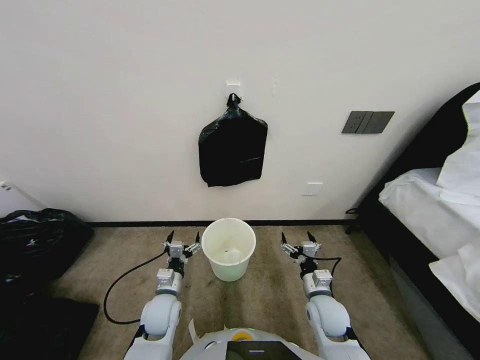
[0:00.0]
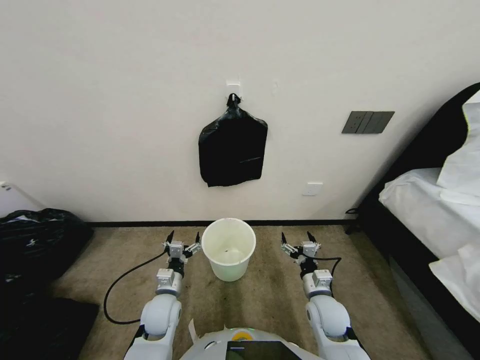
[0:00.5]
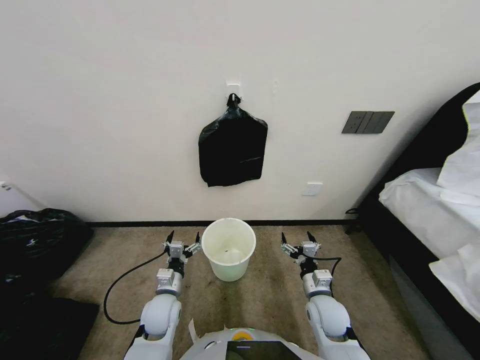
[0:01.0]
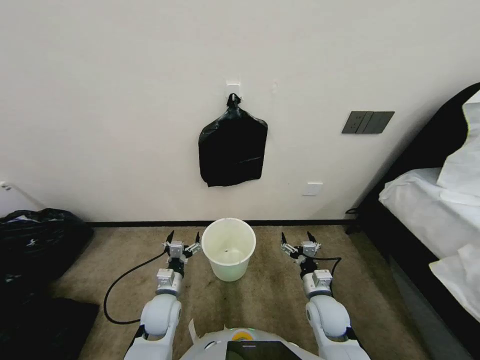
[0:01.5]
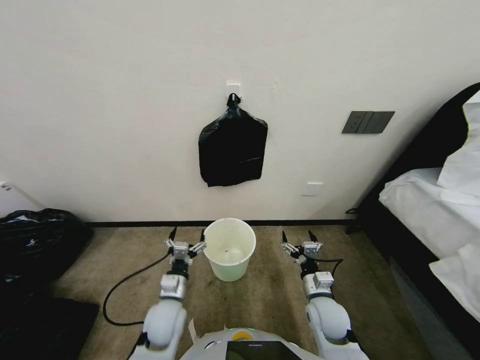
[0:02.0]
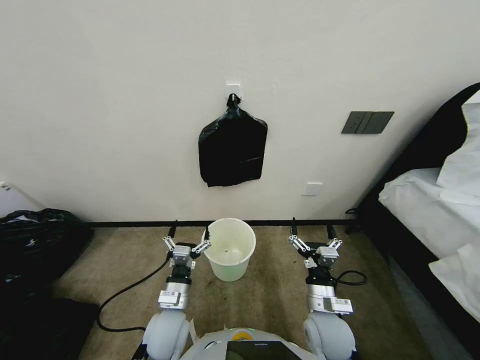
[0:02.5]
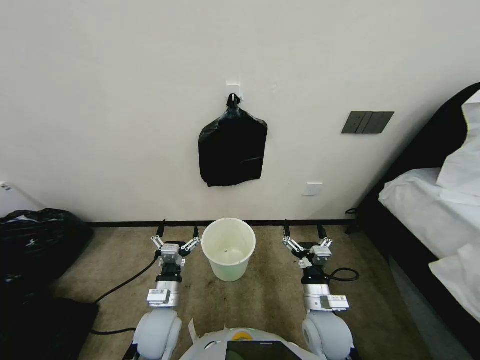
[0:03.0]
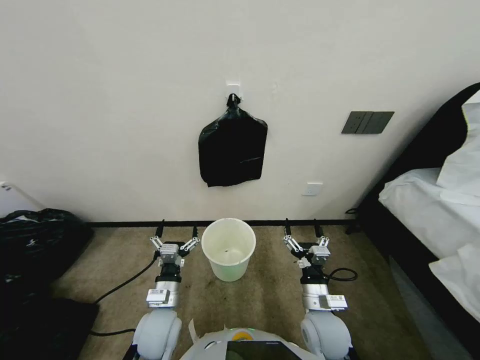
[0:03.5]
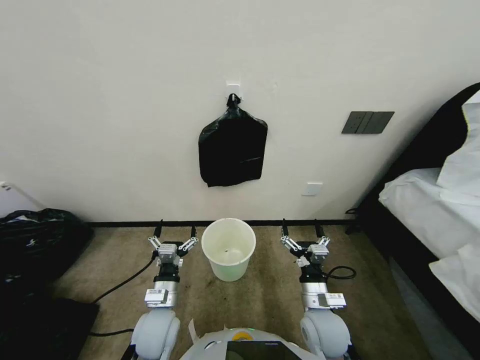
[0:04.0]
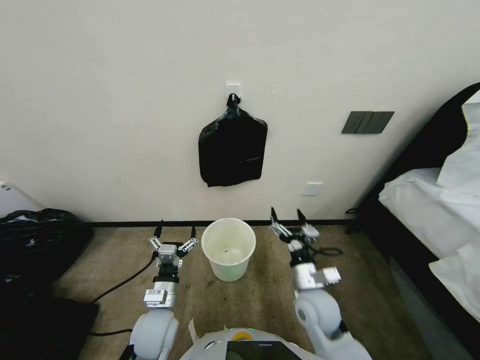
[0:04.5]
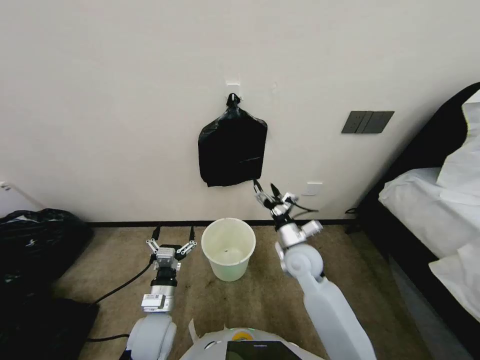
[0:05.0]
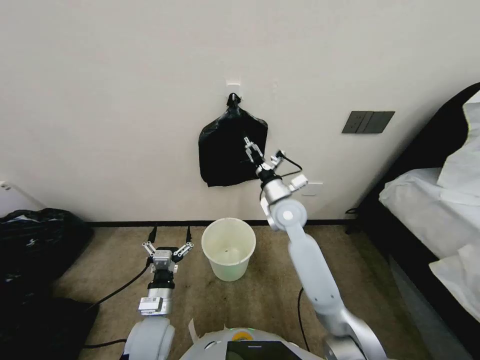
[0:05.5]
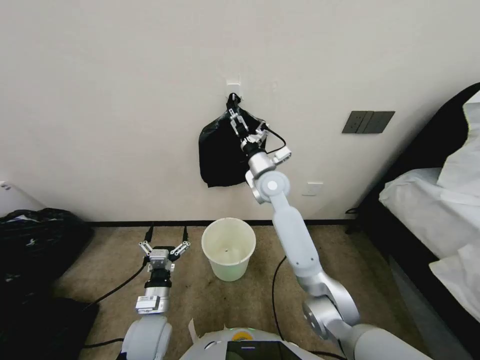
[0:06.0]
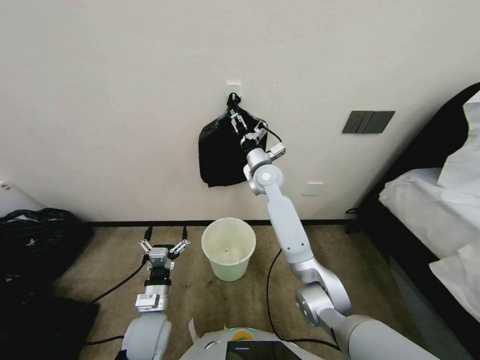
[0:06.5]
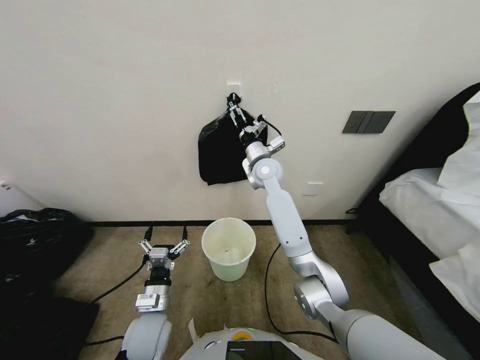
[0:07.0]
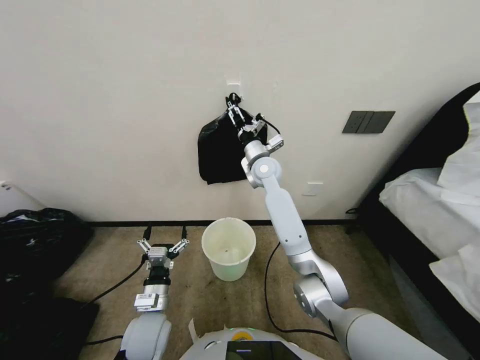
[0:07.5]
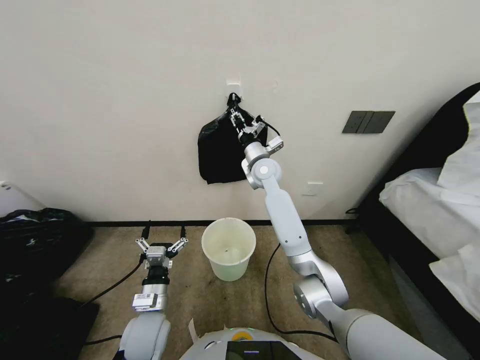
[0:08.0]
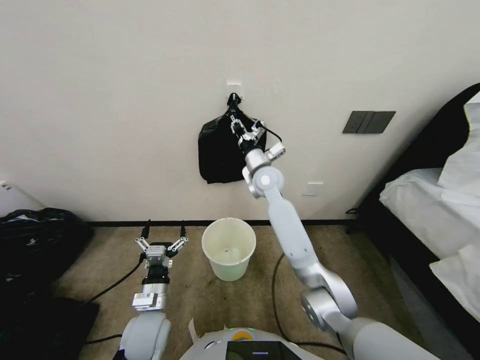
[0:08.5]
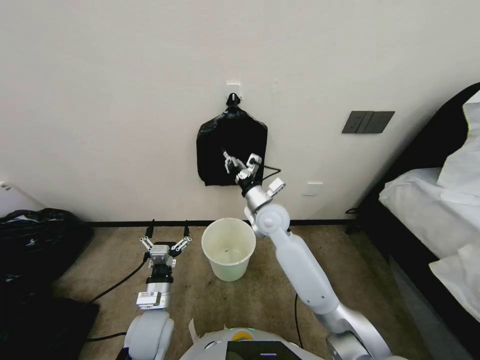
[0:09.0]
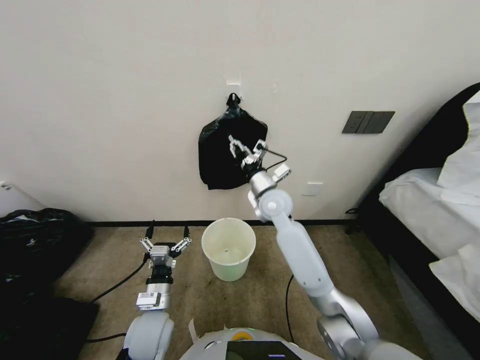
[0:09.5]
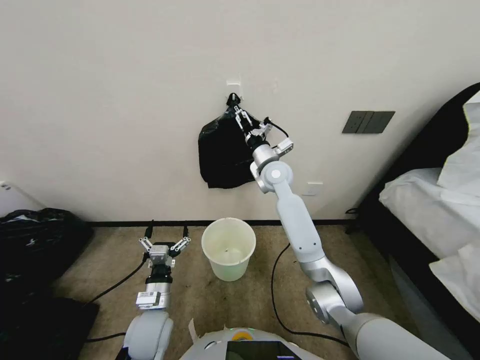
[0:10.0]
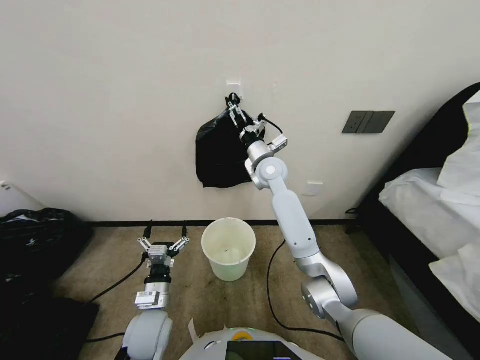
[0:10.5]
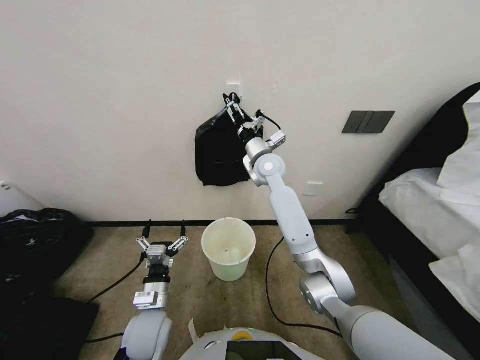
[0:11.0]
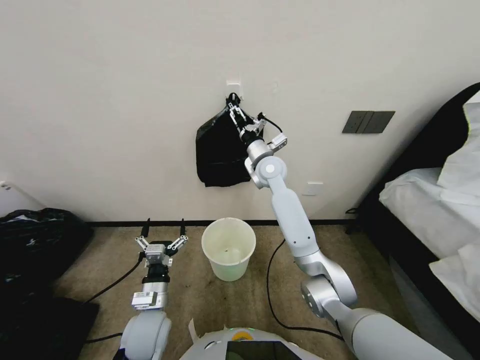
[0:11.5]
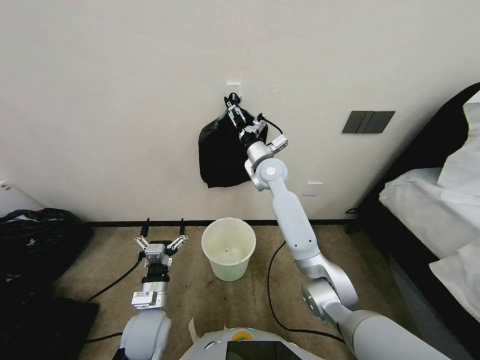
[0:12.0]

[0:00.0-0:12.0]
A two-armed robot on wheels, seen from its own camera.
Task of the whole recording: Place a trash bag onto the trash bin.
0:02.0 to 0:04.0: The left gripper changes place by roughly 5 cm. The right gripper ends up roughly 5 cm from where it was.
0:04.0 to 0:06.0: The right gripper shifts roughly 35 cm forward and upward.
0:06.0 to 0:08.0: The right gripper goes about 5 cm forward, and closes.
0:08.0 to 0:10.0: The right gripper moves some 10 cm backward and comes back, and opens.
0:10.0 to 0:12.0: There are only small adjustments of the grippers.

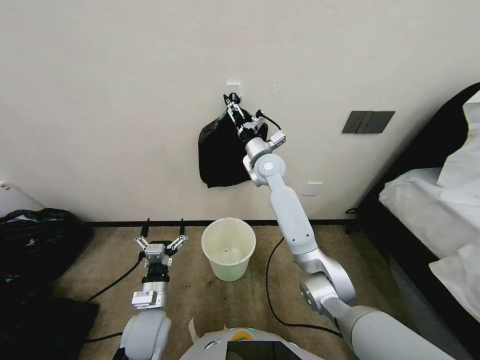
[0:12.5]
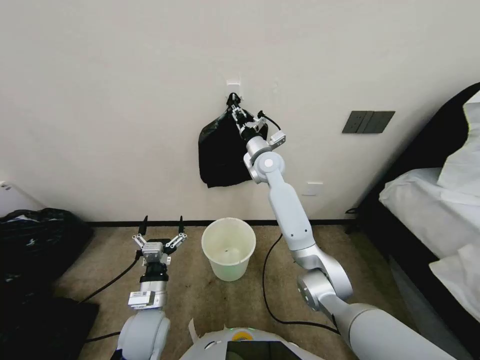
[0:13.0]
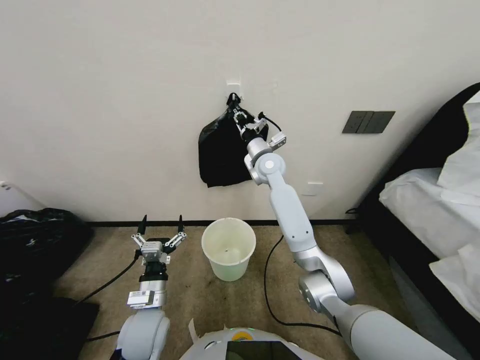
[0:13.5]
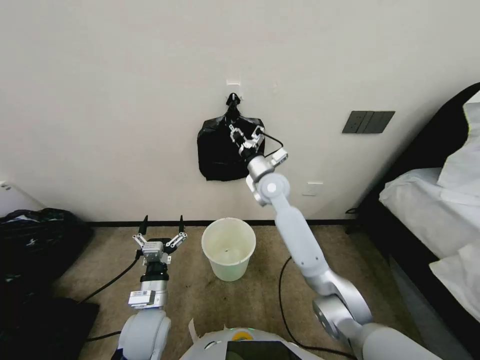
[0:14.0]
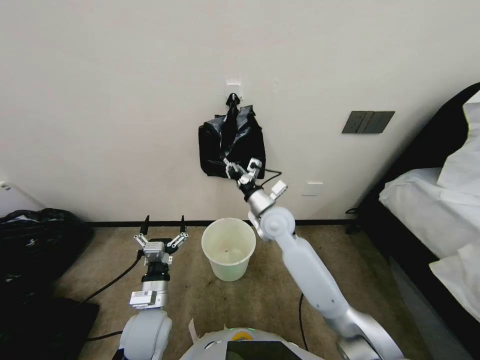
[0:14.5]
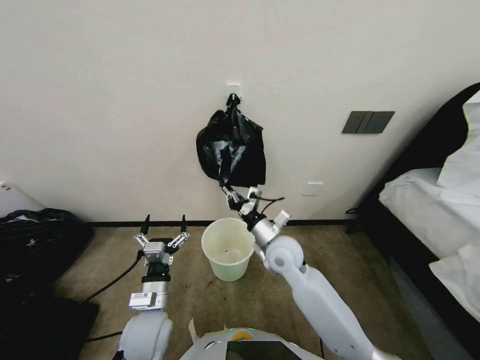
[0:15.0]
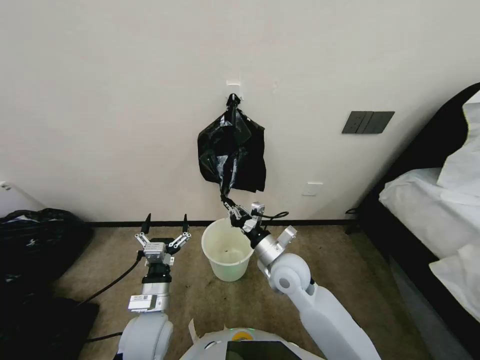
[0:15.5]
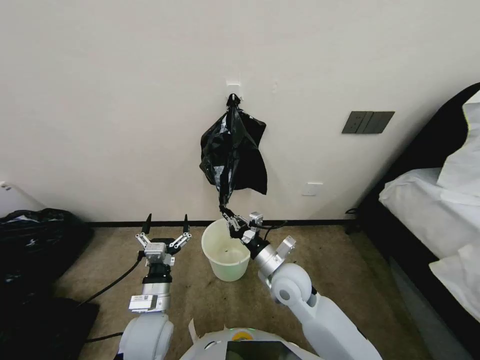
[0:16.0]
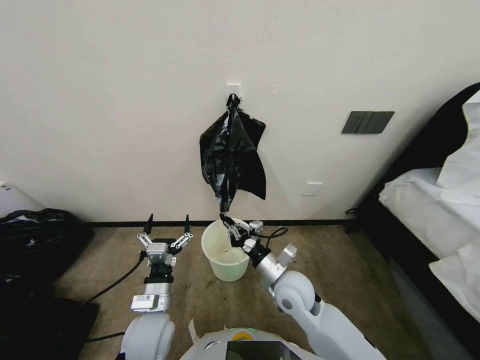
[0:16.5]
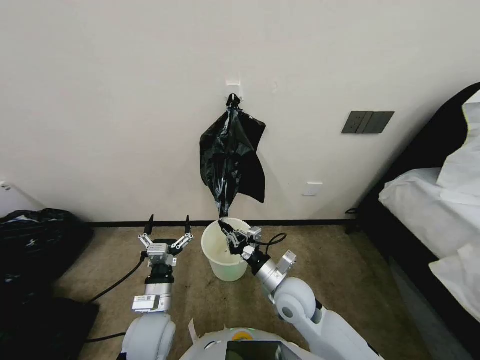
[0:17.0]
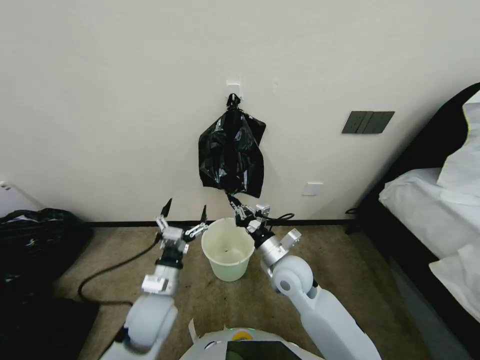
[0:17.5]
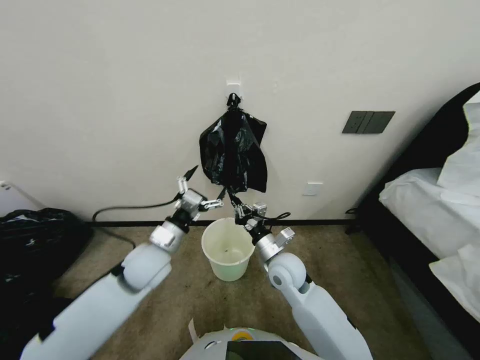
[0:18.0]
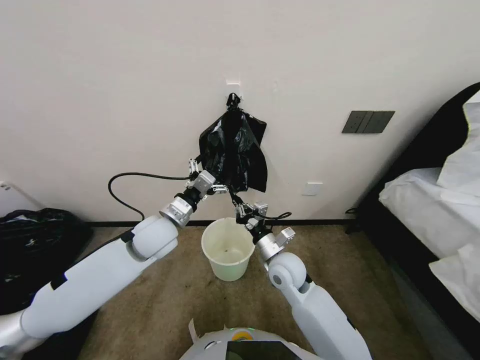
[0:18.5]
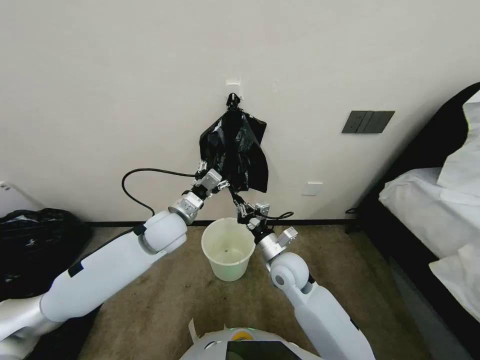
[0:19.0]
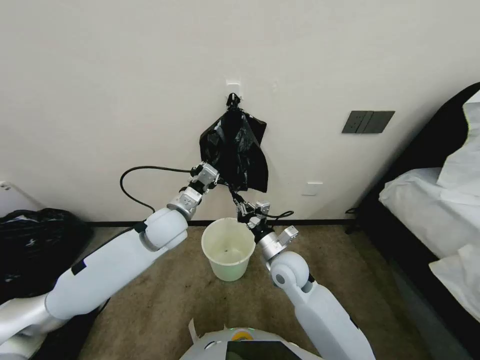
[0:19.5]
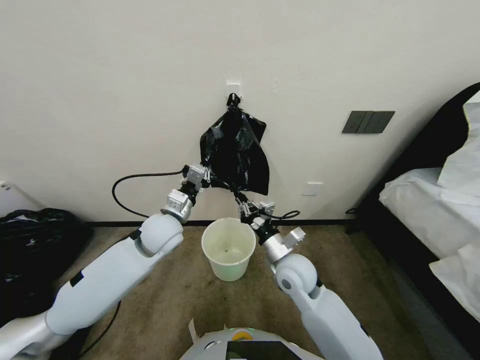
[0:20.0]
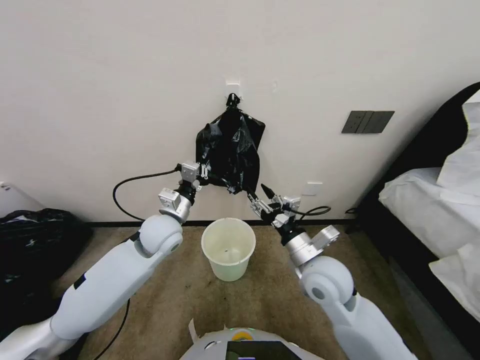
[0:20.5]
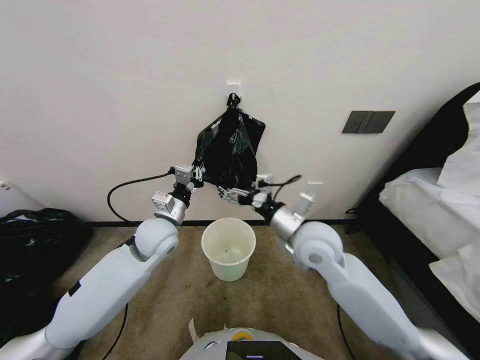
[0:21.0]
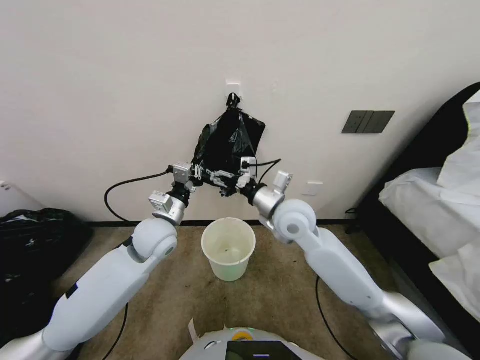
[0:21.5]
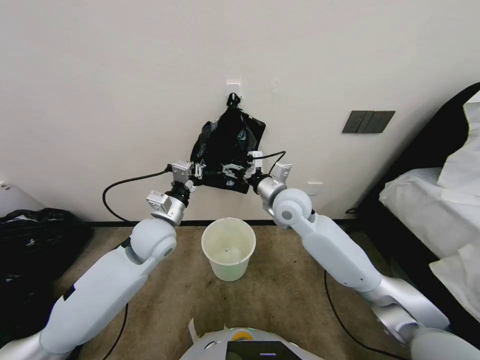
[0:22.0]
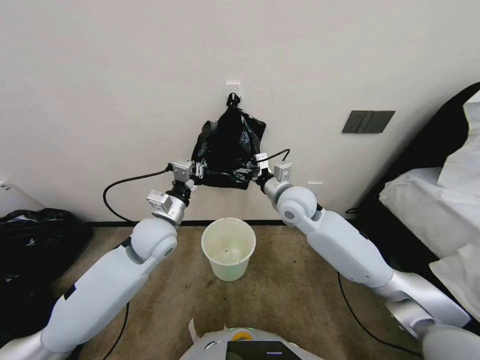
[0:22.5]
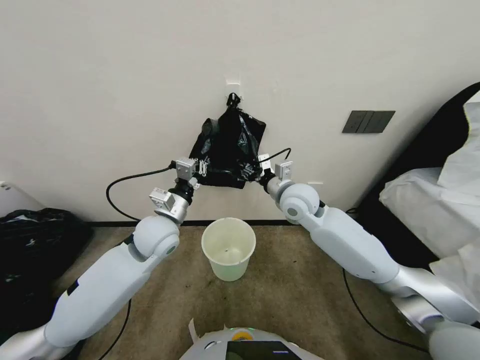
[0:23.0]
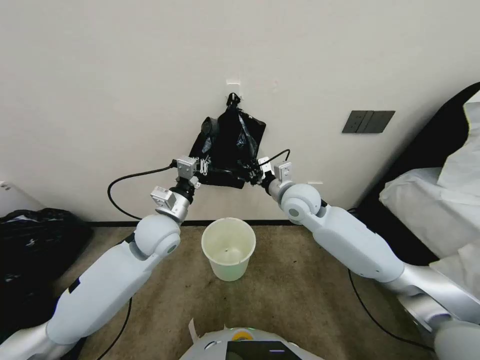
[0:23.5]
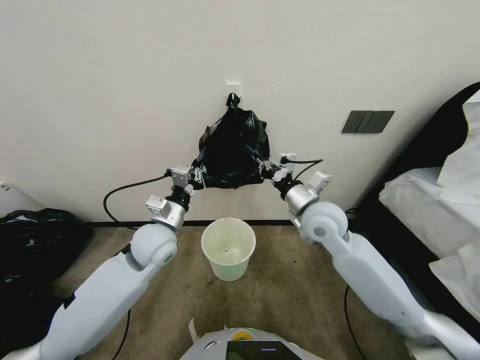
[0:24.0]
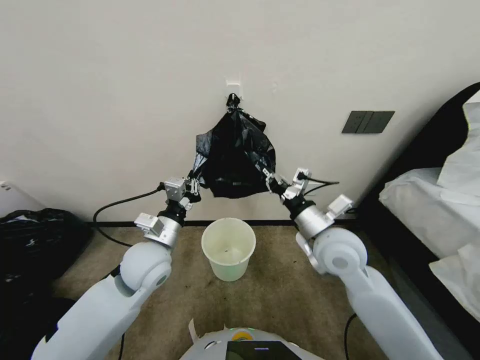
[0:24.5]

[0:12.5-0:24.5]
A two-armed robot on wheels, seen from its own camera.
Task of the whole recording: Place a trash bag onto the trash bin.
0:12.5 to 0:14.5: The right gripper is displaced backward and downward by roughly 15 cm, and closes its fingers.
0:14.5 to 0:16.5: The right gripper travels backward and downward by approximately 20 cm.
0:16.5 to 0:18.5: The left gripper heads forward and upward, covering about 20 cm.
0:18.5 to 0:20.5: The left gripper closes its fingers. Meanwhile the right gripper heads upward and to the right, covering roughly 10 cm, and opens up.
0:20.5 to 0:22.5: The right gripper shifts approximately 20 cm forward and upward, and opens its fingers.
0:22.5 to 0:24.5: The right gripper is displaced backward and to the right by some 10 cm, and closes; the left gripper moves backward, some 5 cm.

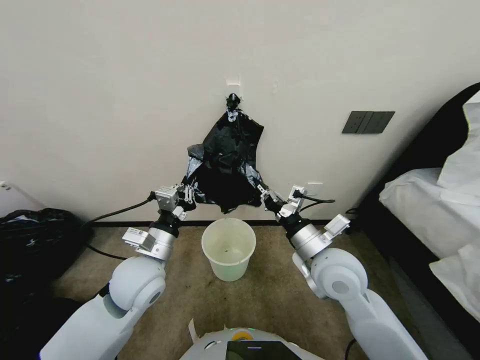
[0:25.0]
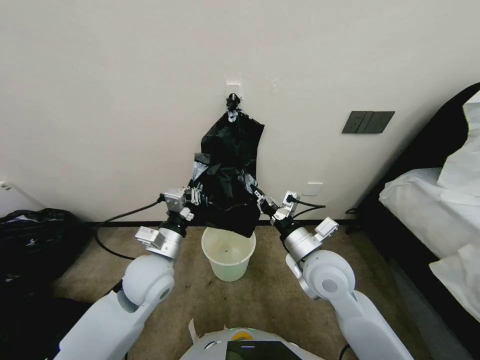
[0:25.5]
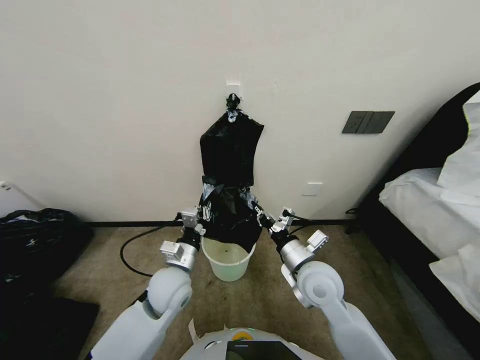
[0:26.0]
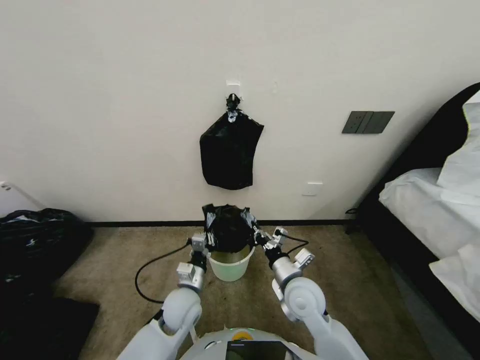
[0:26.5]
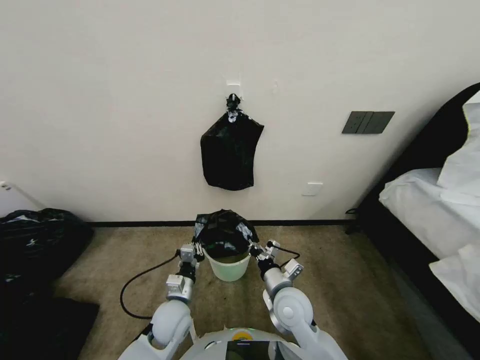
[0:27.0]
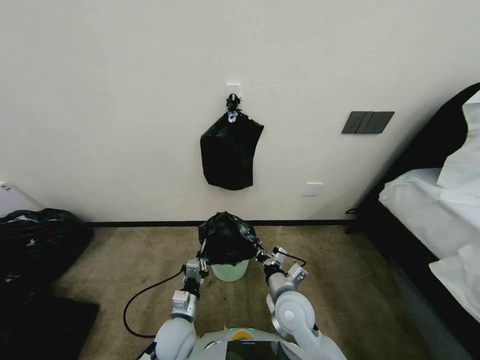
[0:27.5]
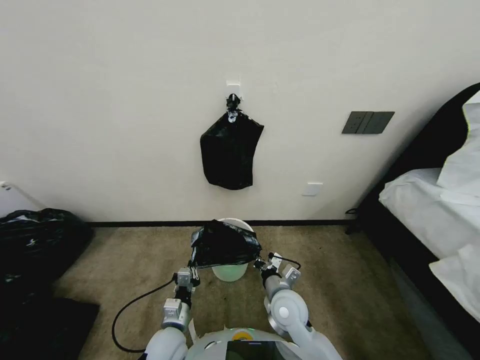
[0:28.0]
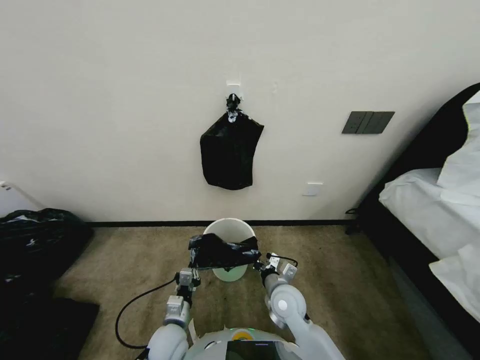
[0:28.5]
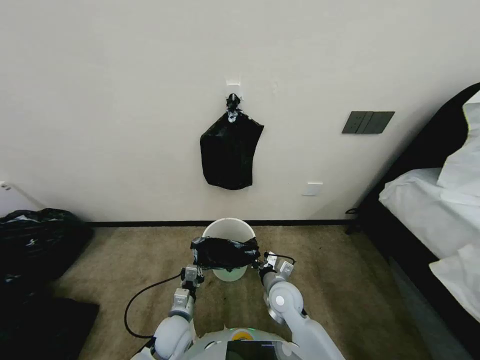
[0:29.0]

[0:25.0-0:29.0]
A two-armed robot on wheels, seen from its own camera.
Task of the whole recording: Place a trash bag onto the trash bin.
0:25.0 to 0:27.0: The left gripper travels downward by some 20 cm. Meanwhile the right gripper moves downward and to the left, approximately 15 cm.
0:27.0 to 0:29.0: Both grippers move downward, about 5 cm.
